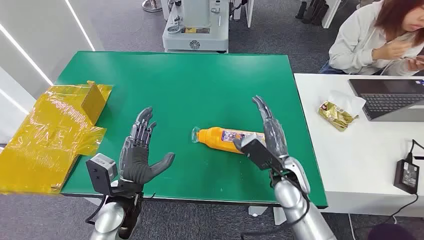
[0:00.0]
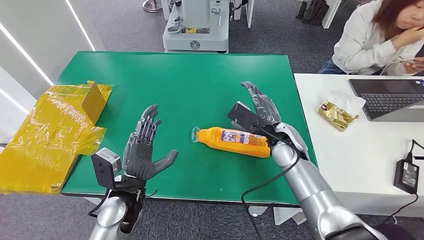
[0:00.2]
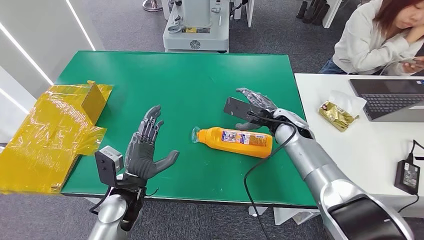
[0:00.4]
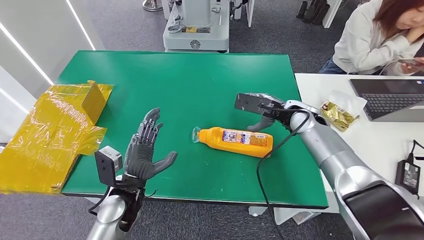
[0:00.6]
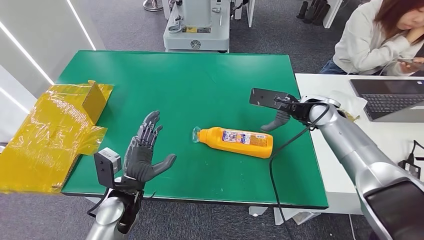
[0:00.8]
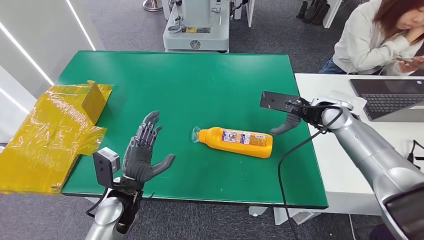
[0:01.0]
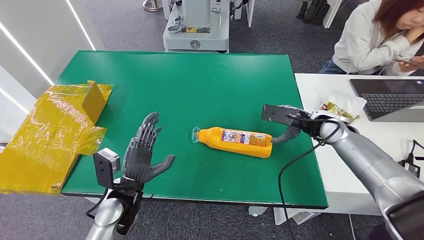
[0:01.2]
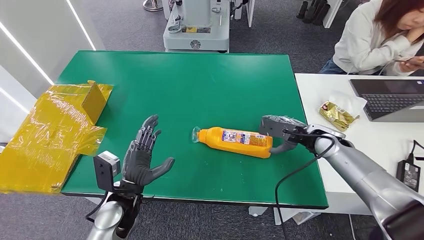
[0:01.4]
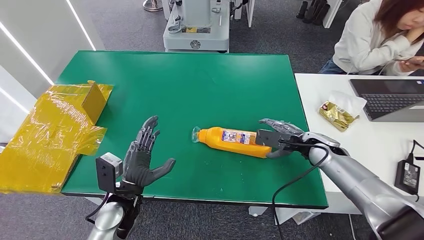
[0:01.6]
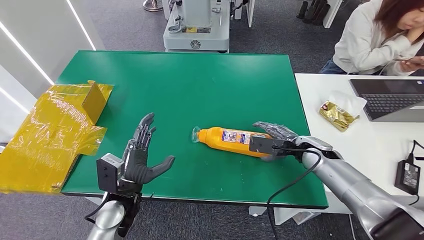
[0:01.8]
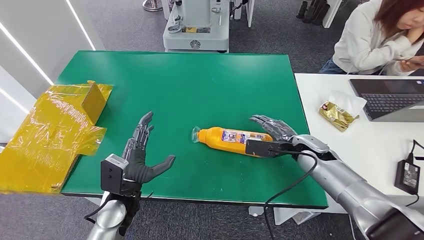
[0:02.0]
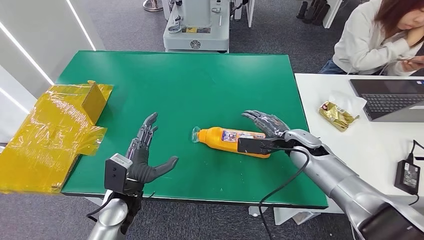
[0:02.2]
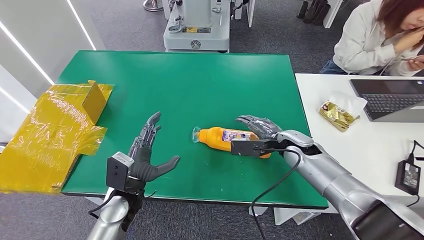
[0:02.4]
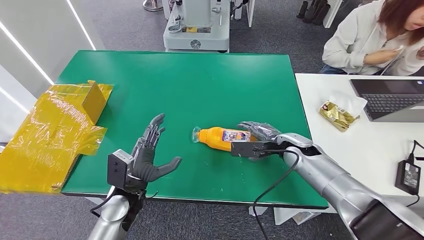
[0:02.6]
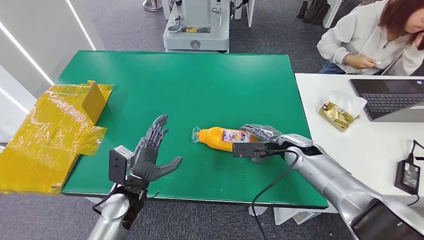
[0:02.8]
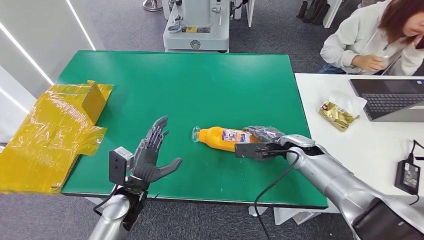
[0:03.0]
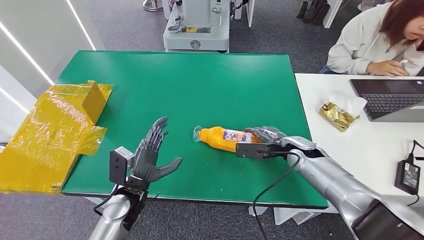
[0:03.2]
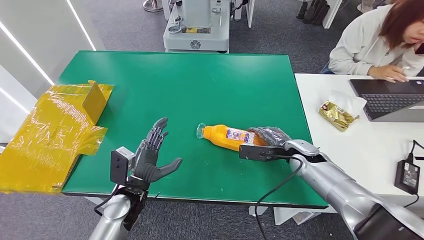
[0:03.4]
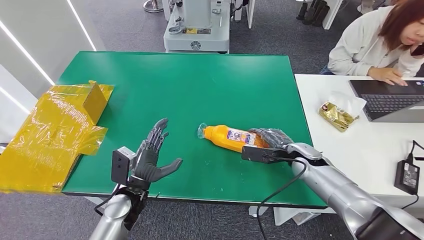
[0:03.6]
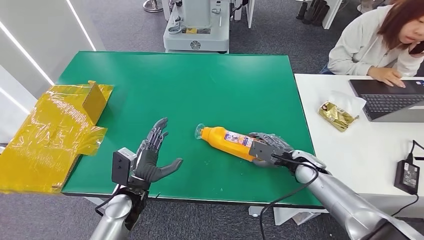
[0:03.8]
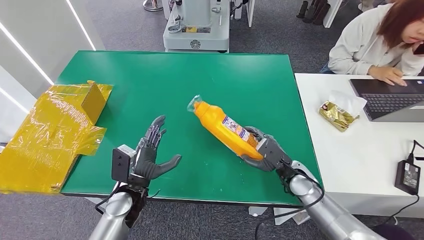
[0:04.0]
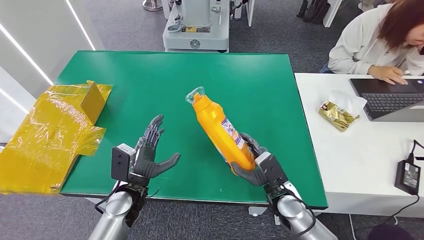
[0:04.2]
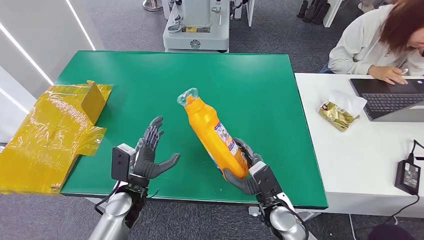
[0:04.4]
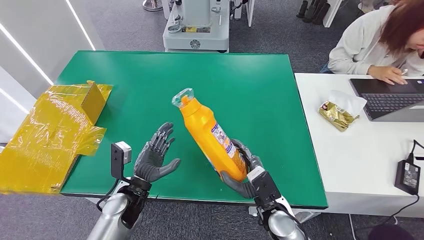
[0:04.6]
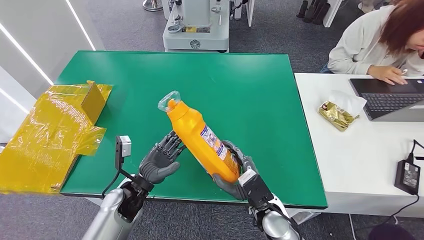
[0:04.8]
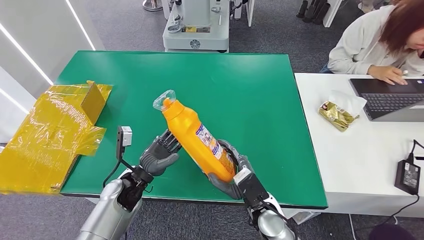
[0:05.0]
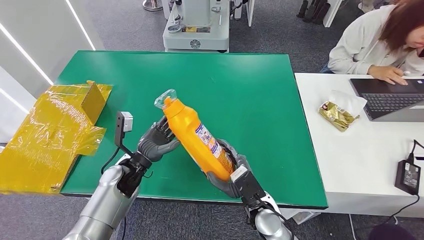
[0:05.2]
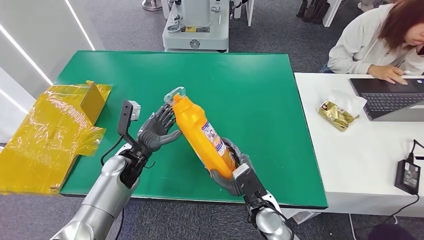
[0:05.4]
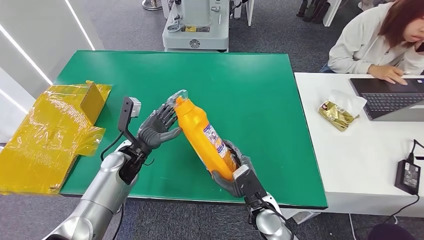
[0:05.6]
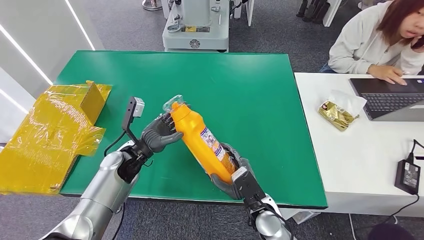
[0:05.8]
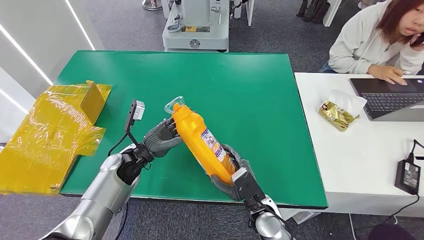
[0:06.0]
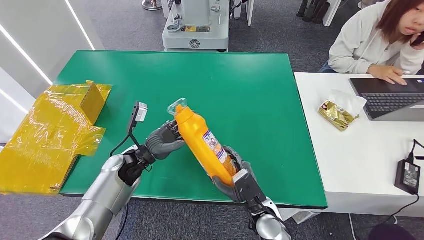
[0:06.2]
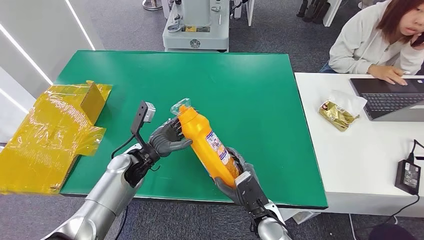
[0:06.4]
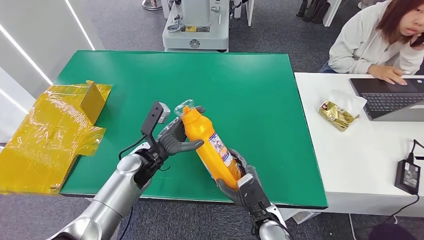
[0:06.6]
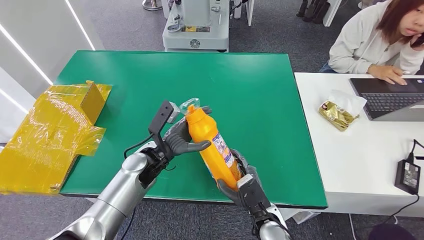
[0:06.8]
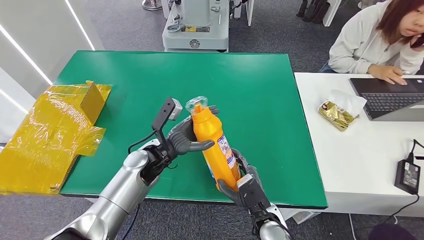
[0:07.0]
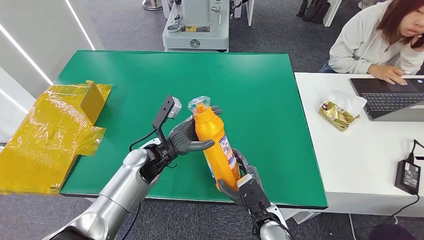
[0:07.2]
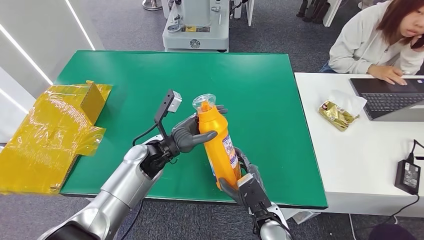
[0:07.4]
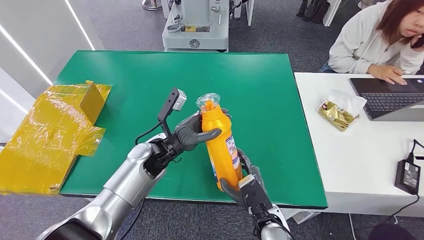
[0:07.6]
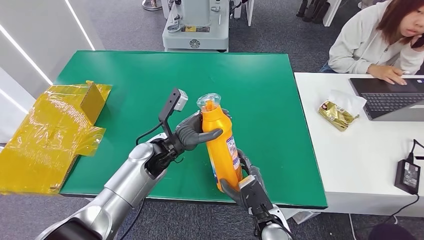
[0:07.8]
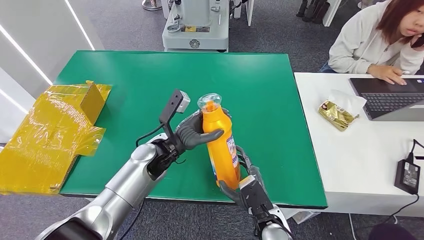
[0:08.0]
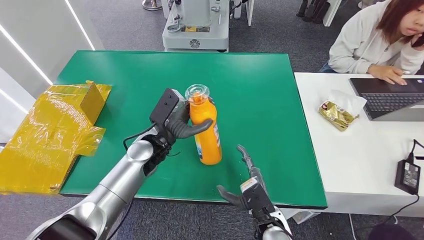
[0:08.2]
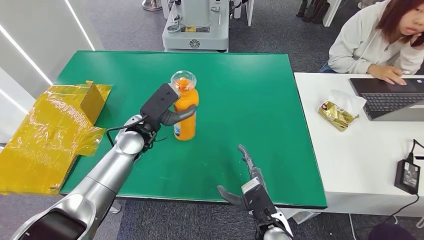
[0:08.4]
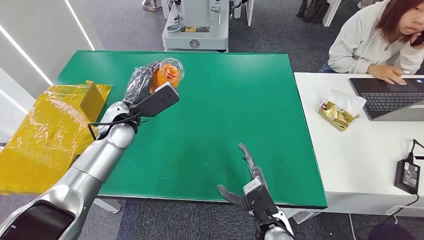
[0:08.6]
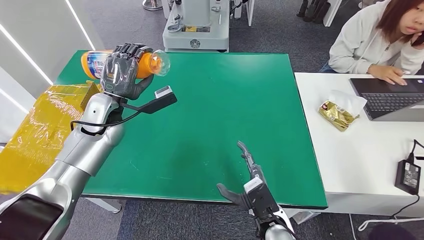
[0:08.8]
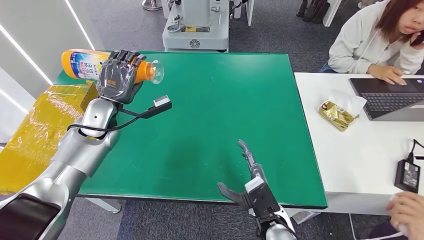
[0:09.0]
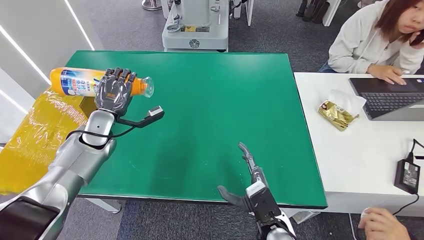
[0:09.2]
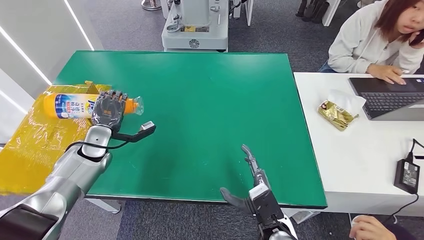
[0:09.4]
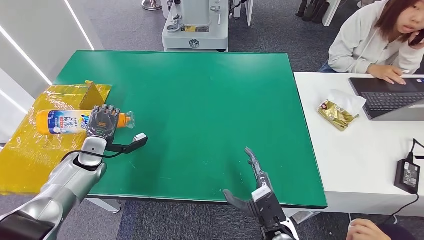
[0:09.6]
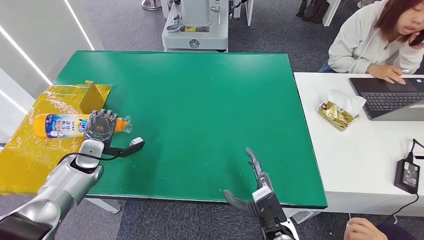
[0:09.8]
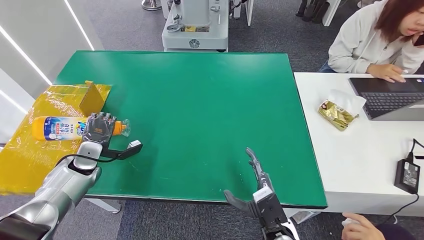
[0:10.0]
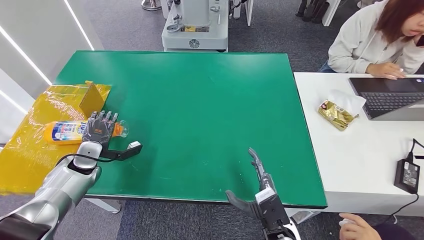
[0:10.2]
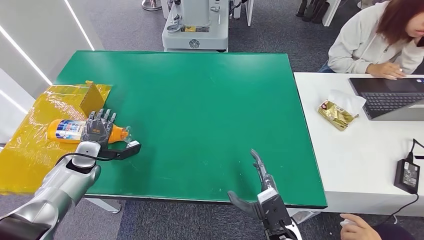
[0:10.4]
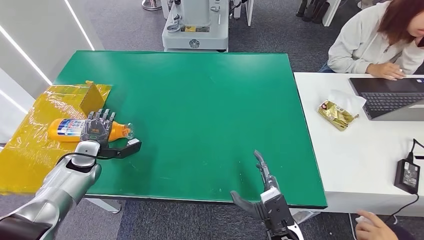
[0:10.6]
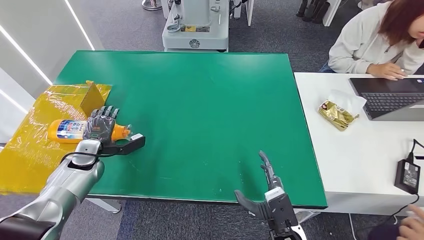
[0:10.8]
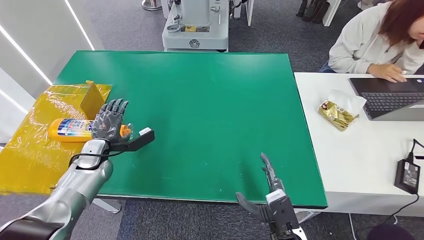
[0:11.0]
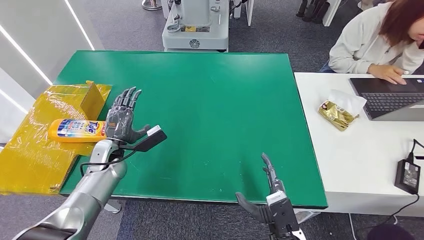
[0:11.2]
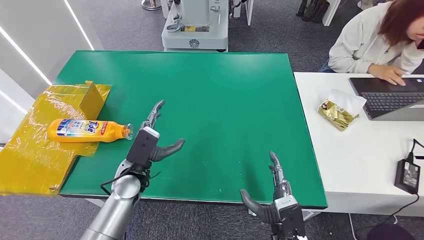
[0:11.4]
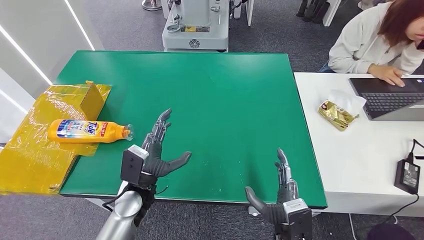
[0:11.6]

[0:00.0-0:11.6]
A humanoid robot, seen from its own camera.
Step, 0:00.0 to 0:05.0: Pick up the bottle from the table.
Step, 0:06.0 to 0:11.6: Turn the bottle to the front side.
0:01.4 to 0:02.8: The right hand goes some 5 cm to the left.
0:02.8 to 0:04.4: The right hand shifts approximately 20 cm backward, to the left and downward.
0:04.4 to 0:05.8: The left hand travels forward by about 10 cm.
0:05.8 to 0:07.2: The left hand heads to the right, covering some 5 cm.
0:08.8 to 0:10.2: The left hand shifts about 20 cm downward, to the left and backward.
0:10.2 to 0:11.6: The left hand shifts some 25 cm to the right and backward.

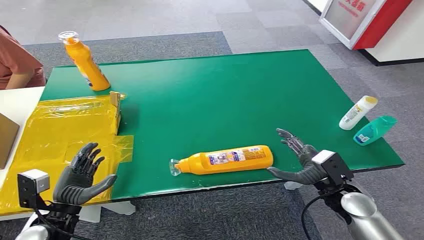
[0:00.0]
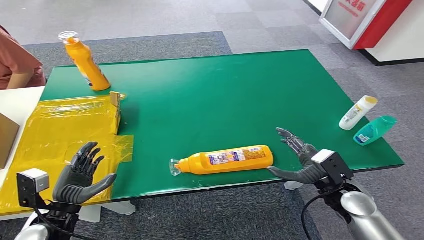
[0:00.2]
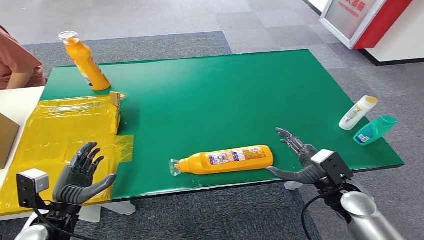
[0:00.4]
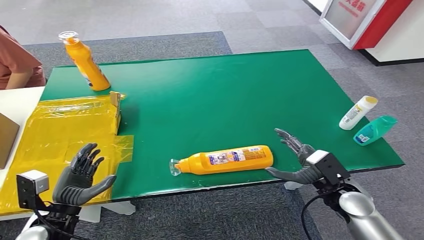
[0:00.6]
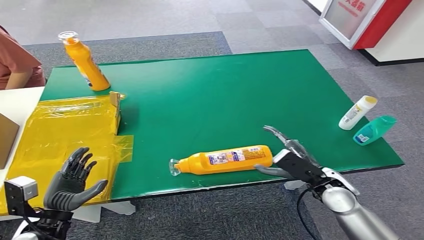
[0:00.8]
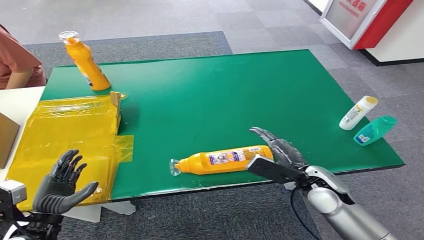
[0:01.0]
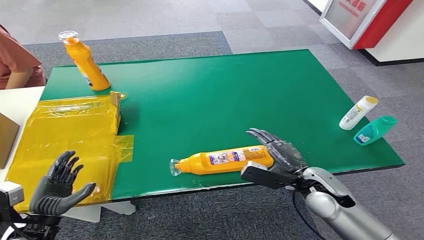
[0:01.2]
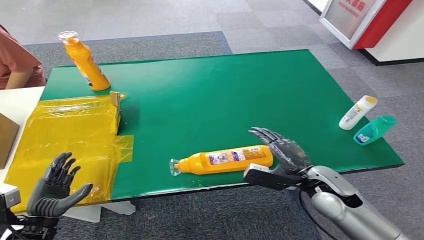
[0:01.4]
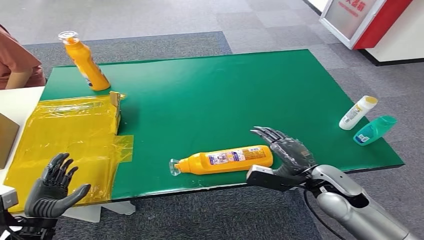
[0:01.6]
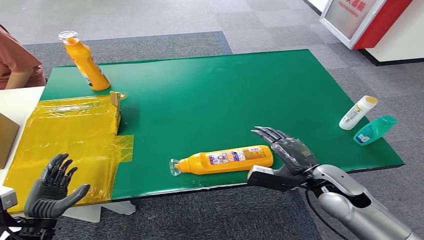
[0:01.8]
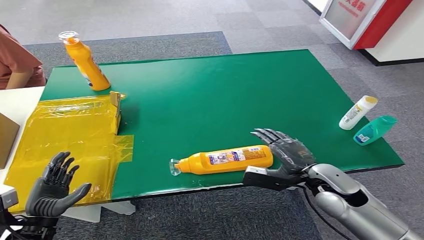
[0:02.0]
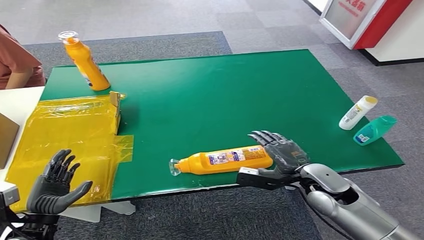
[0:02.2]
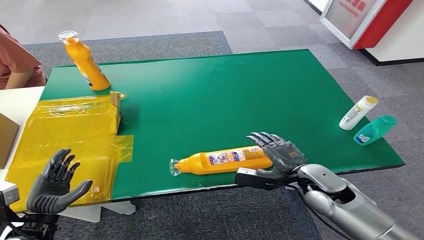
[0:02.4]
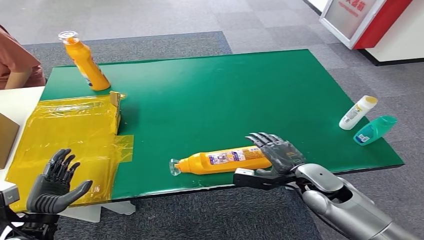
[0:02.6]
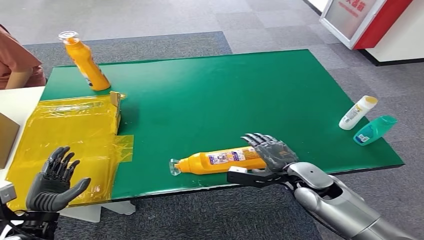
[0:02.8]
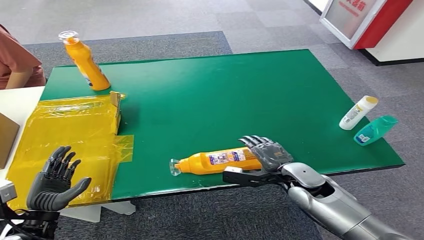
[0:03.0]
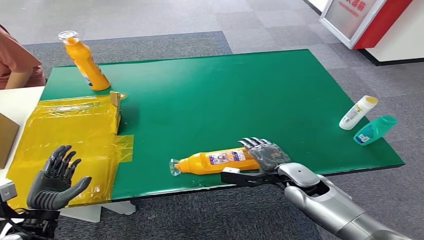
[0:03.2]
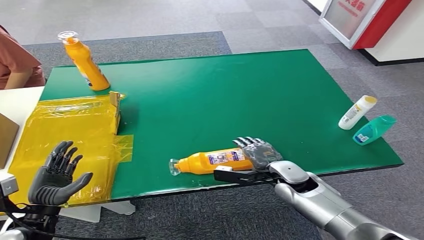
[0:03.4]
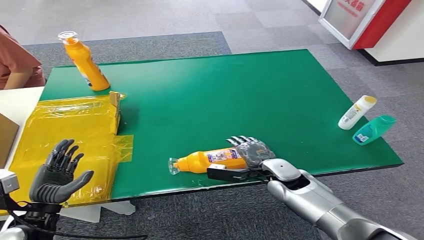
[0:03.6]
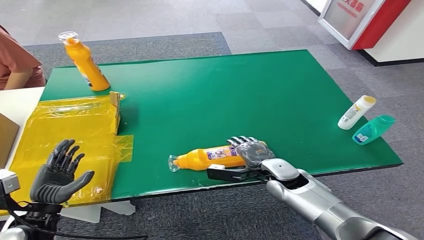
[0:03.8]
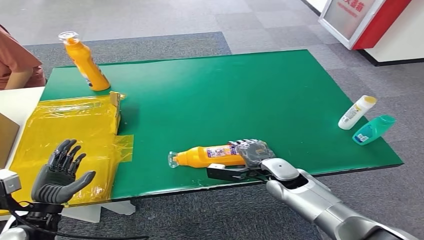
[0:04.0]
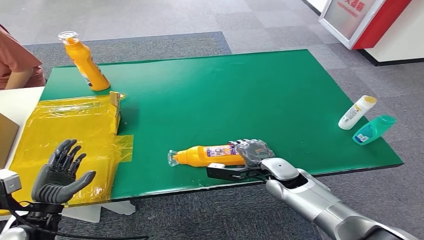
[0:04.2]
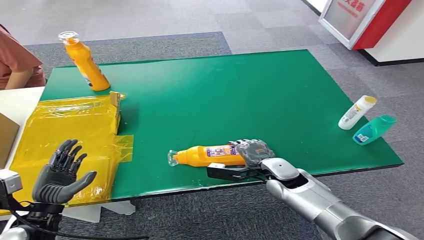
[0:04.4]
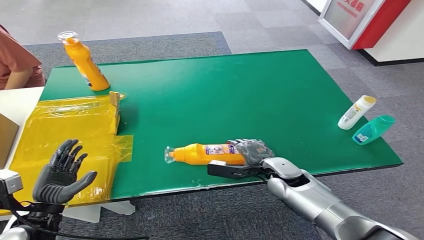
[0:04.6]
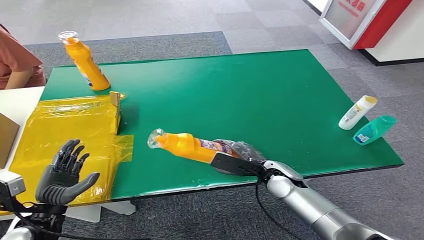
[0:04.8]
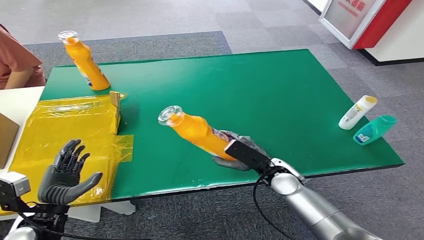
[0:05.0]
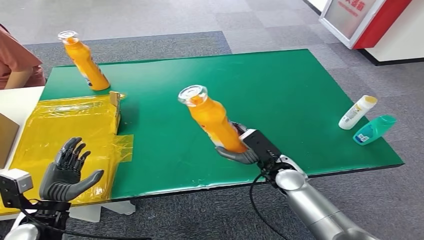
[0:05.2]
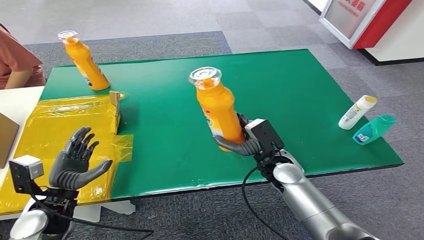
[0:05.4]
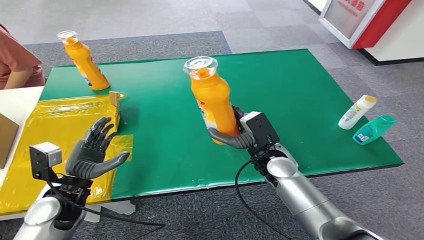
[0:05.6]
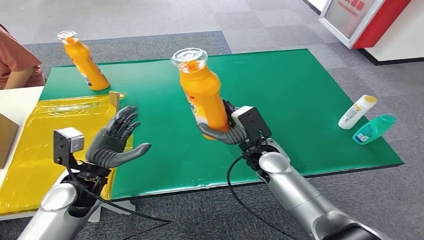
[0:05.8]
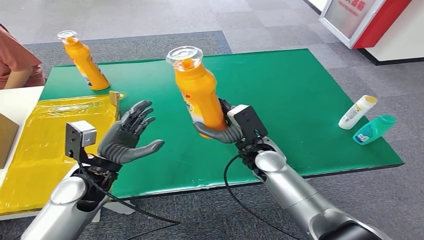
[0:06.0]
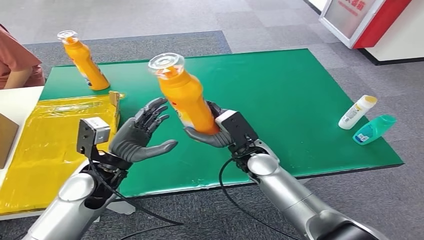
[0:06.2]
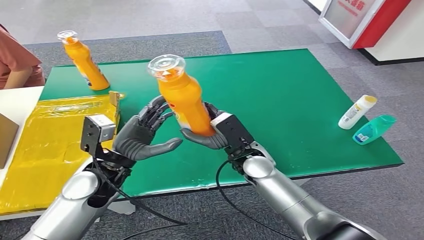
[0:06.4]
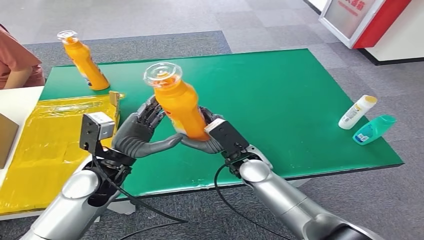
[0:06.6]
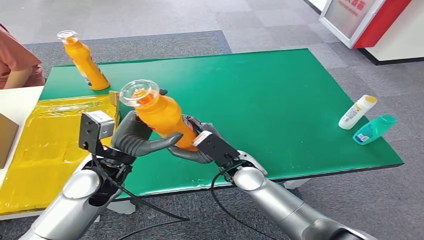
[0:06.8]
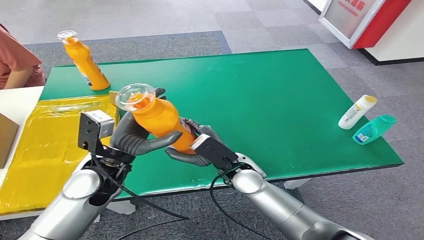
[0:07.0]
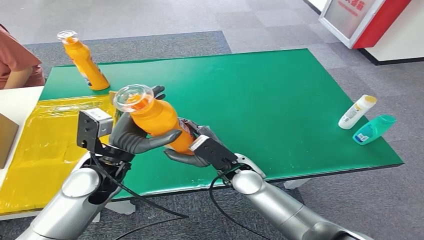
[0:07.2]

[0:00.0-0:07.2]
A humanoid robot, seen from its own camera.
Step, 0:00.0 to 0:05.4: Pick up the bottle from the table.
0:02.8 to 0:04.4: The right hand is displaced to the left by about 5 cm.
